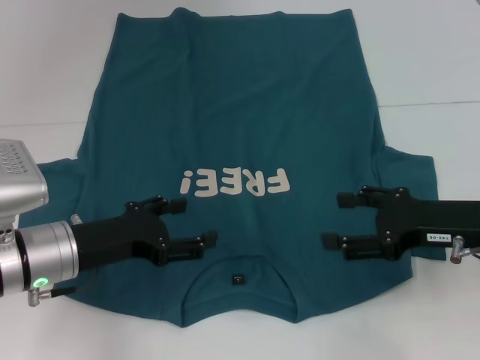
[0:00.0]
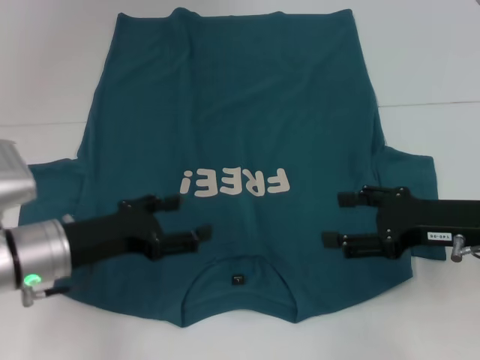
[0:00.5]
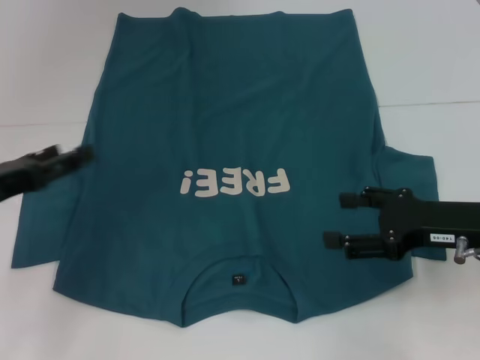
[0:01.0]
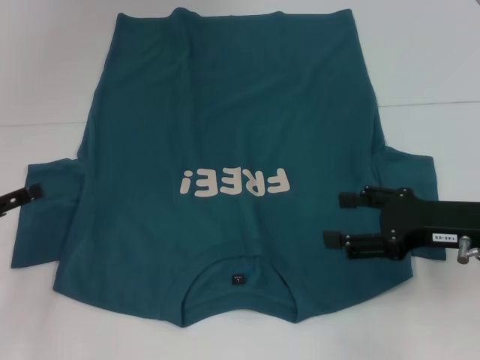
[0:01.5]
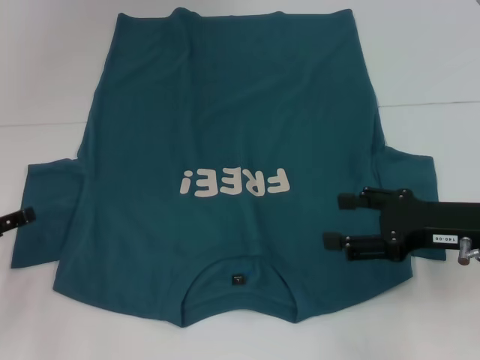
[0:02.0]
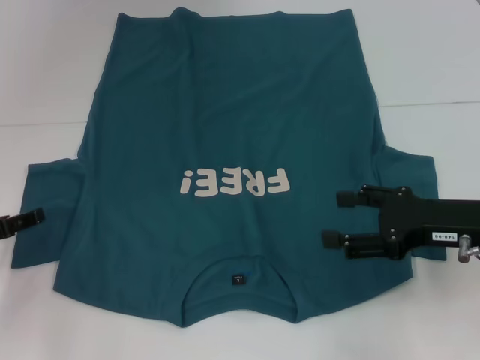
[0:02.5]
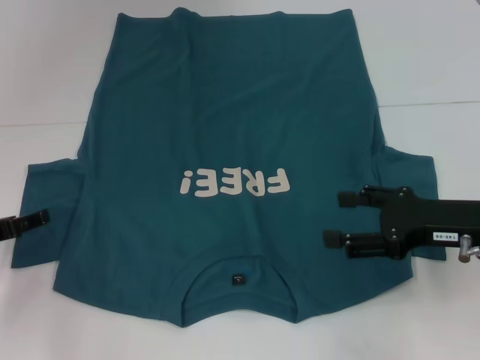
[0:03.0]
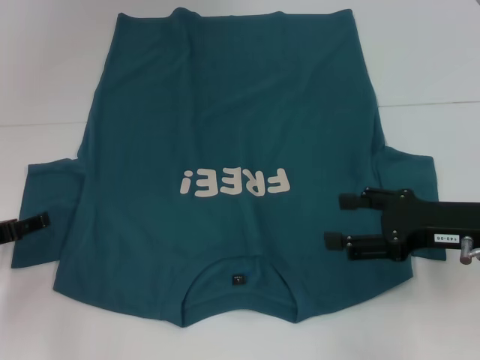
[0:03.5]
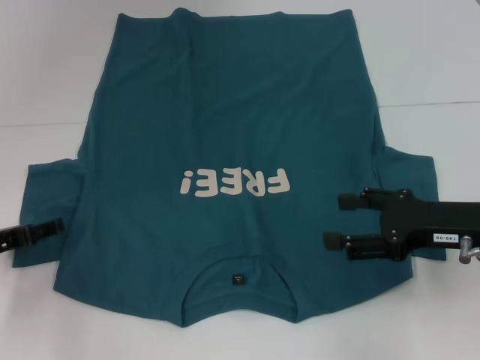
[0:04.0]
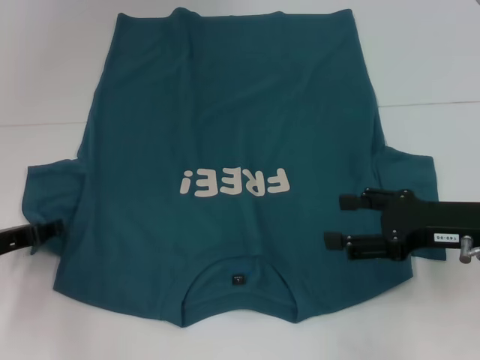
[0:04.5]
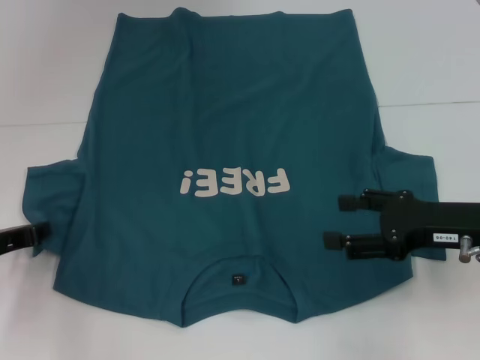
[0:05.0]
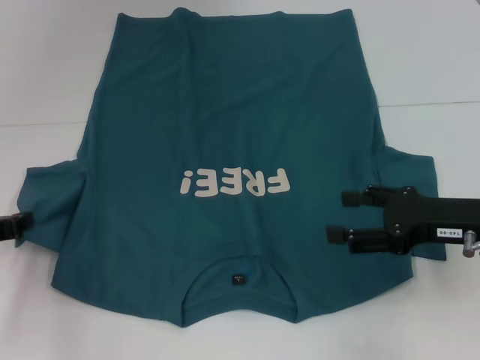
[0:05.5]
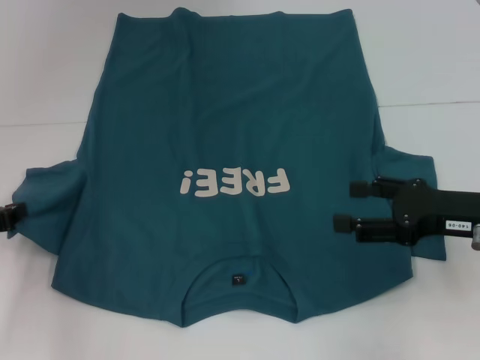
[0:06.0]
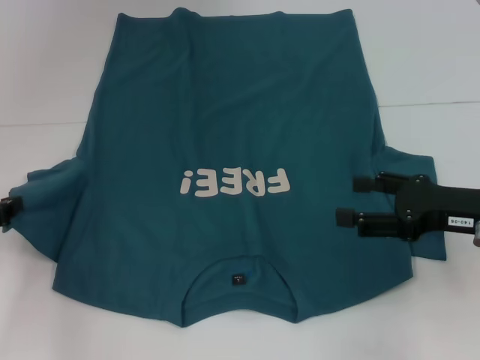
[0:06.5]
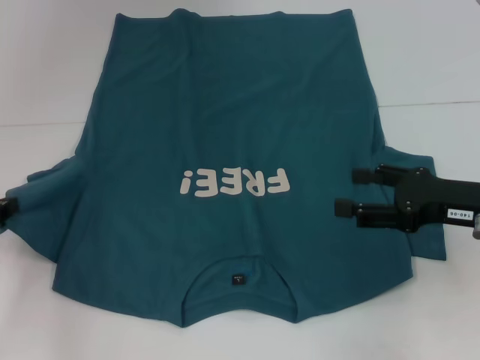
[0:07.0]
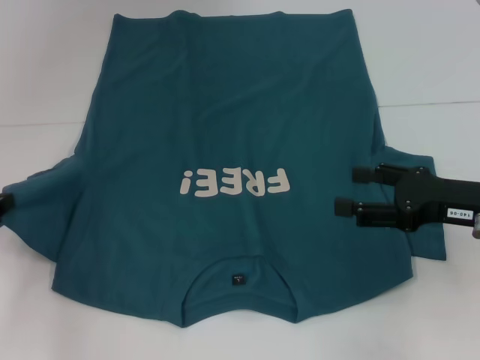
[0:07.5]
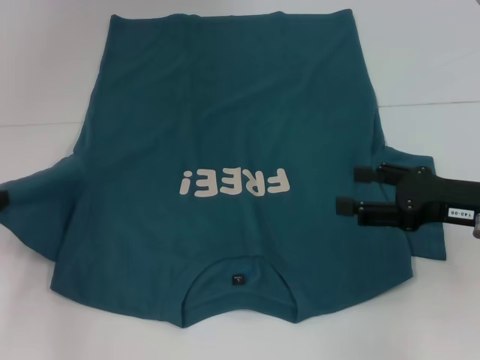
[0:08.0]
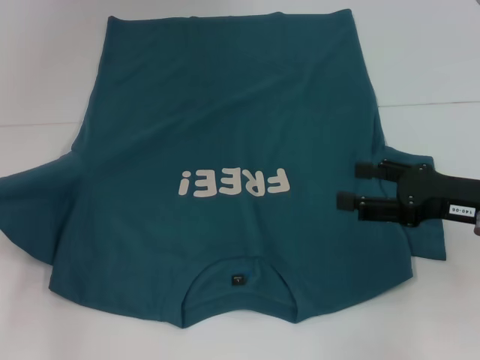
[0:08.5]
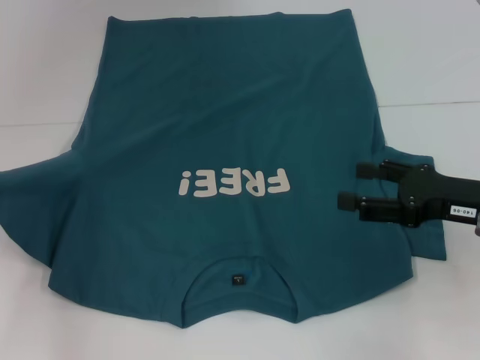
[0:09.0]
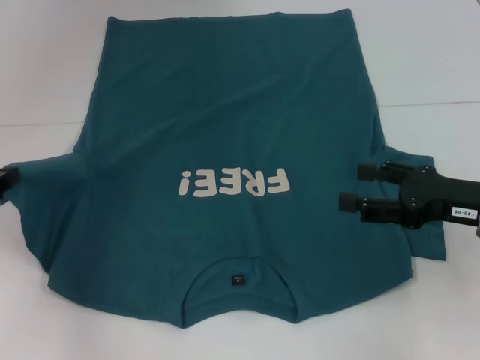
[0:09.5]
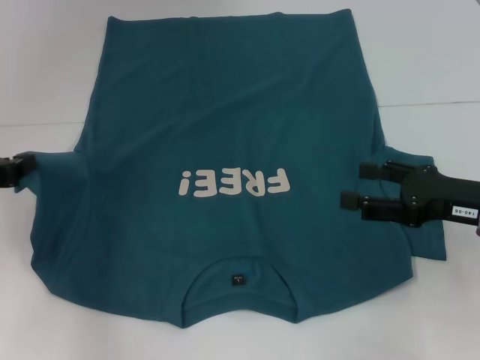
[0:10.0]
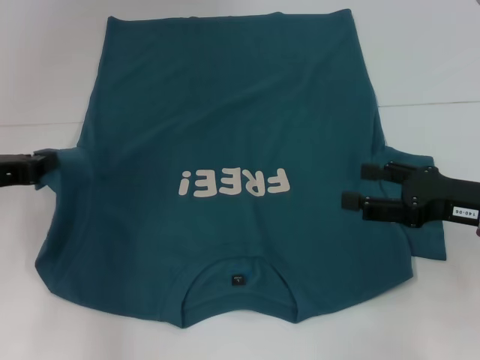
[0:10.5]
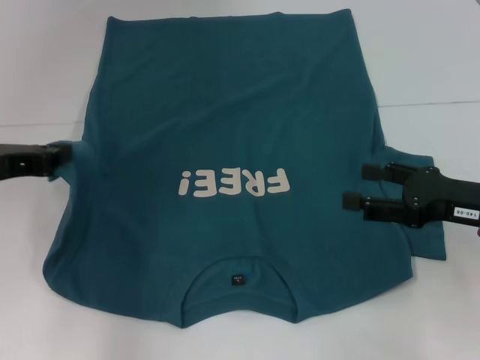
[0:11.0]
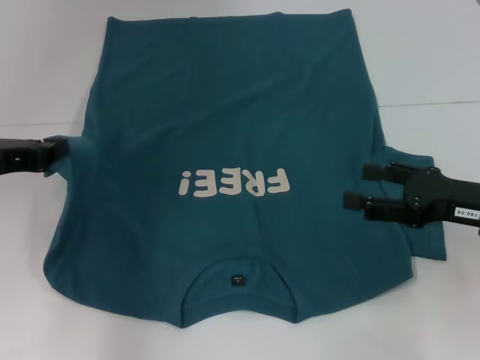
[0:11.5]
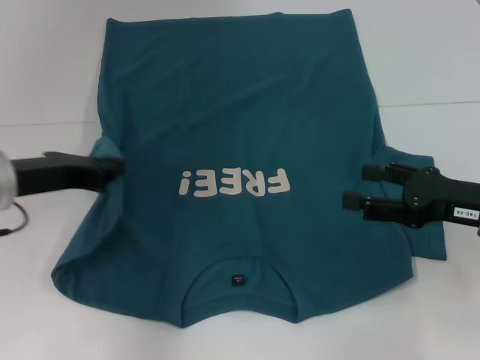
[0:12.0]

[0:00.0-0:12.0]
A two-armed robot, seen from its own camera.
0:00.0 to 0:02.0: The left gripper travels to the left by some 15 cm.
0:02.0 to 0:04.0: The grippers stay close to where they were, moving slightly.
0:04.0 to 0:06.0: The left gripper closes up.
0:06.0 to 0:10.0: There are only small adjustments of the grippers.
0:10.0 to 0:12.0: The left gripper heads to the right, covering about 10 cm.

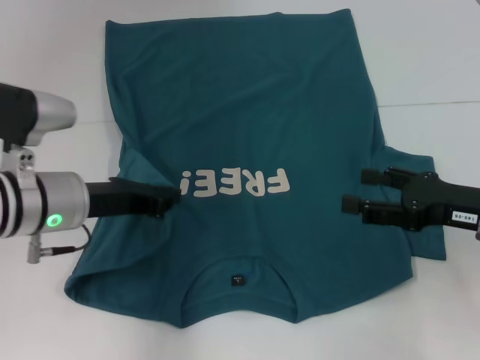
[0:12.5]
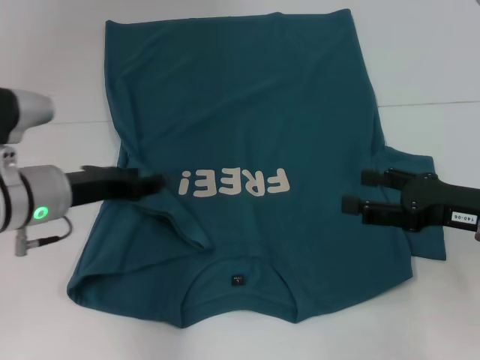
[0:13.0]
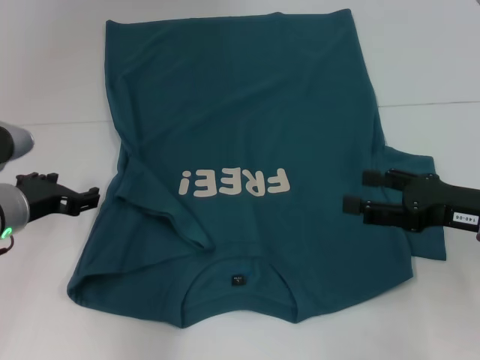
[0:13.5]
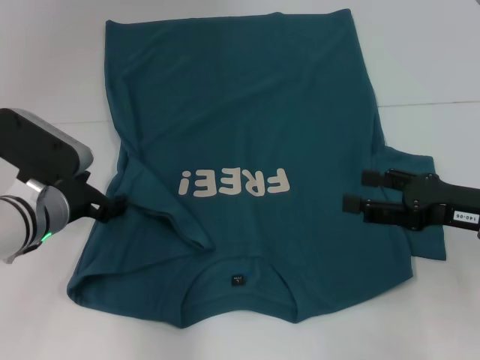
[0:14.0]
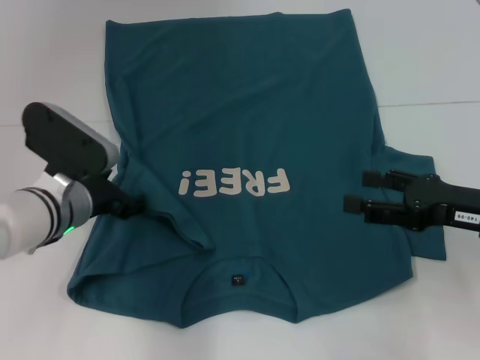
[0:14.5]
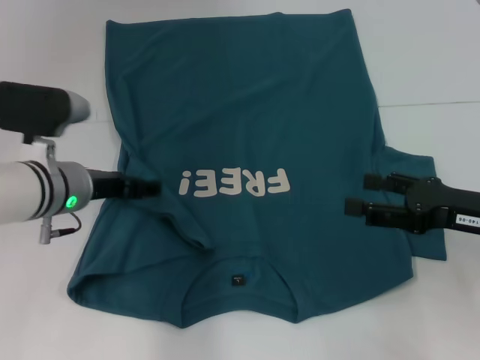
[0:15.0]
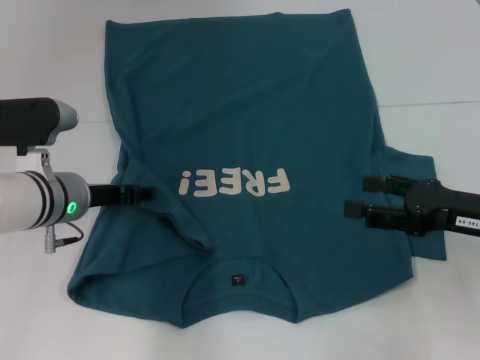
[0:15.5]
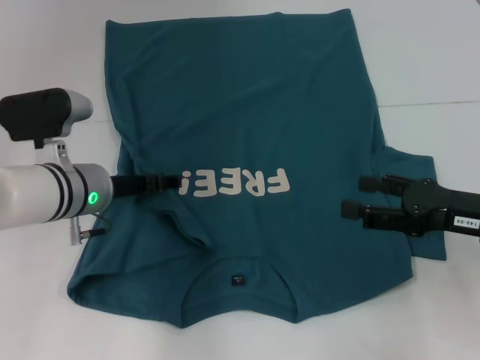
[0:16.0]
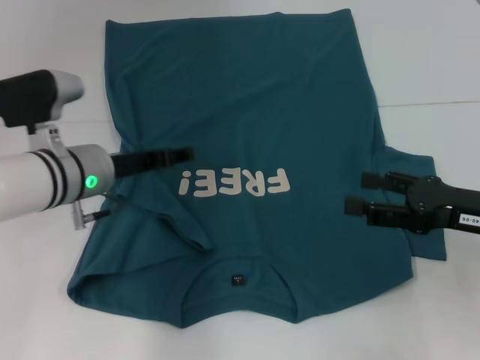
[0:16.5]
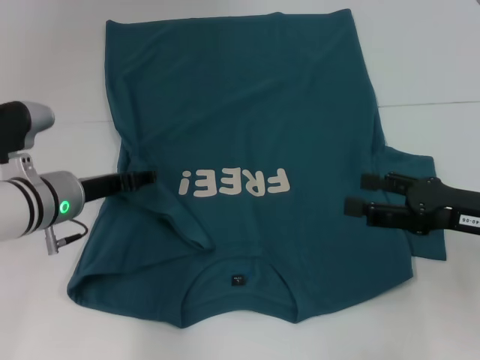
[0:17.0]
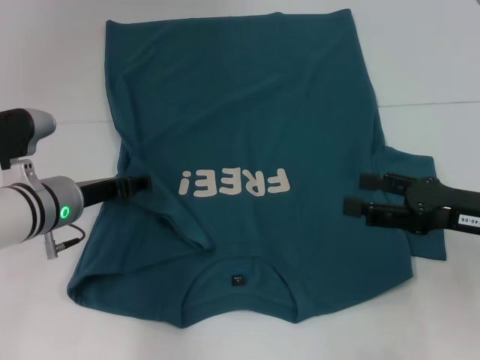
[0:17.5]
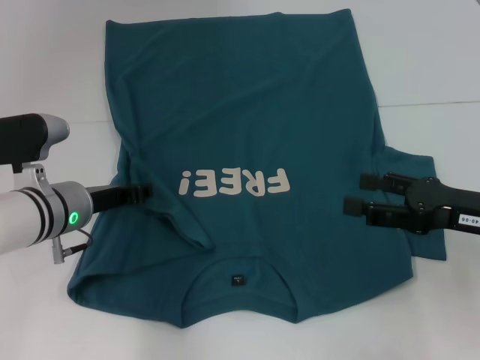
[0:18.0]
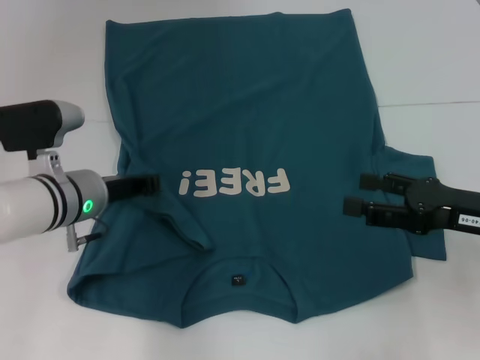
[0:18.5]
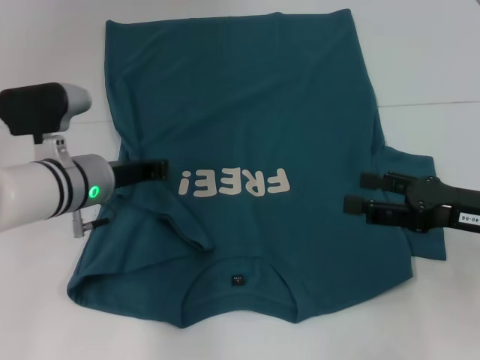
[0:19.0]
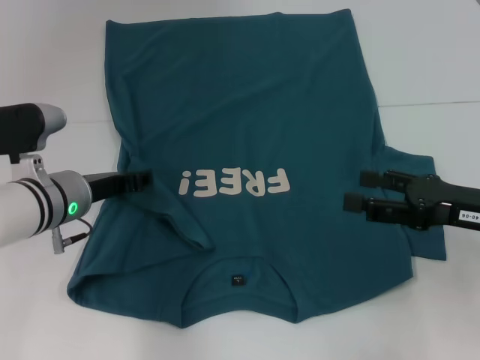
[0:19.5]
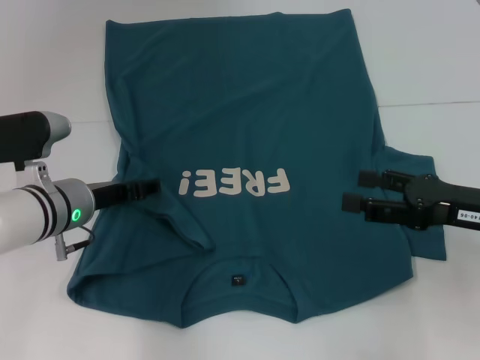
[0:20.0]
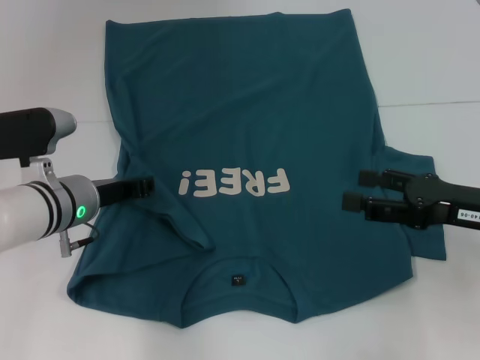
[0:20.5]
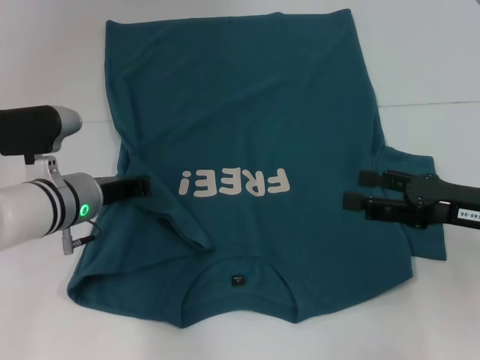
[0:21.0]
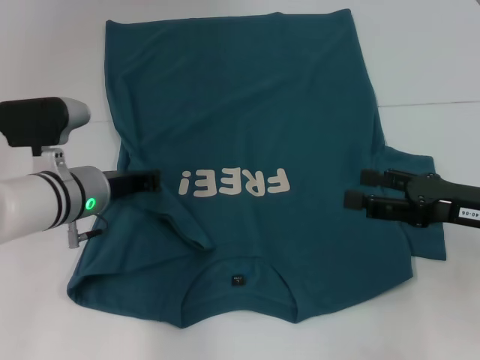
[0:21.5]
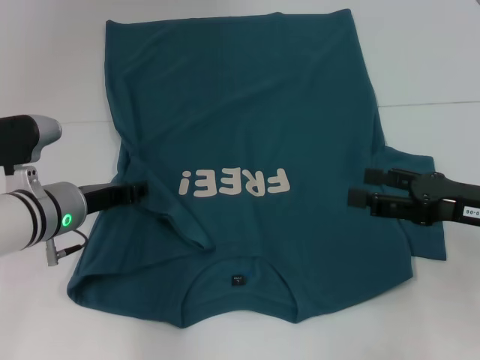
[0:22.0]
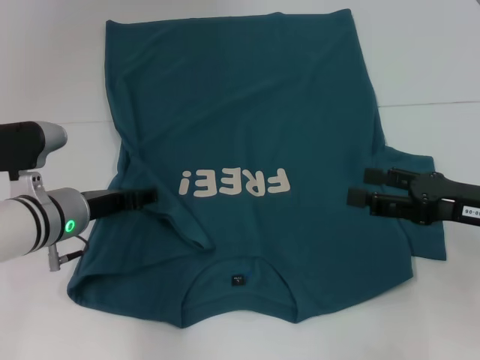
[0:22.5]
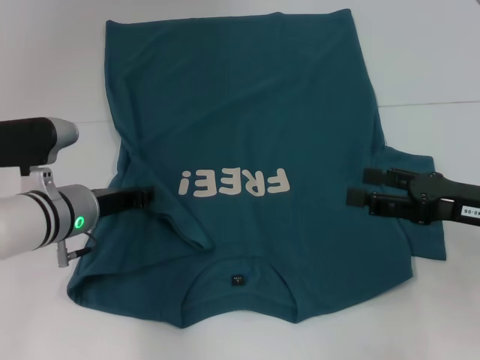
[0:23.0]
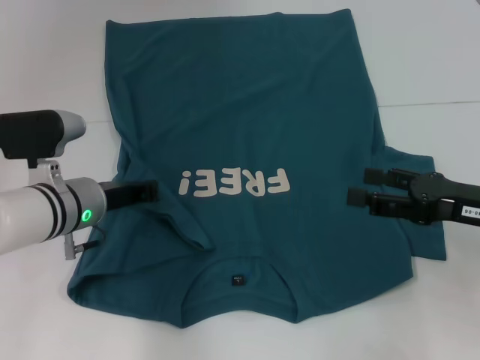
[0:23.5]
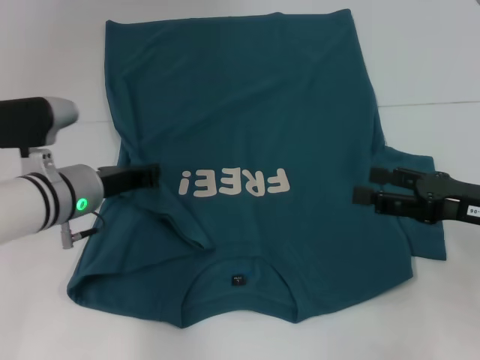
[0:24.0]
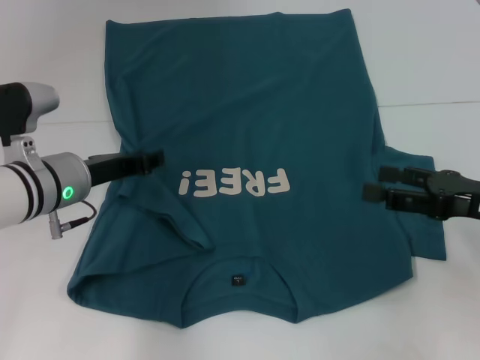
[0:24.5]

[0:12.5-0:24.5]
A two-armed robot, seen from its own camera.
0:12.5 to 0:14.5: The left gripper goes approximately 5 cm downward, and opens up.
0:16.5 to 0:18.5: The left gripper closes up.
0:18.5 to 0:20.5: The grippers stay close to where they were, moving slightly.
0:20.5 to 0:22.5: The left gripper closes, then opens again.
0:22.5 to 0:24.5: The left gripper closes its fingers.

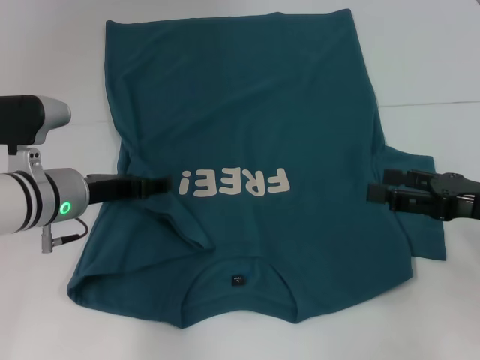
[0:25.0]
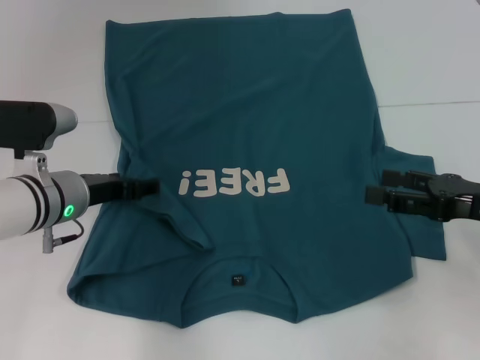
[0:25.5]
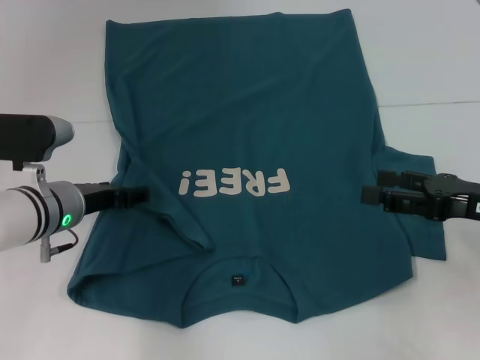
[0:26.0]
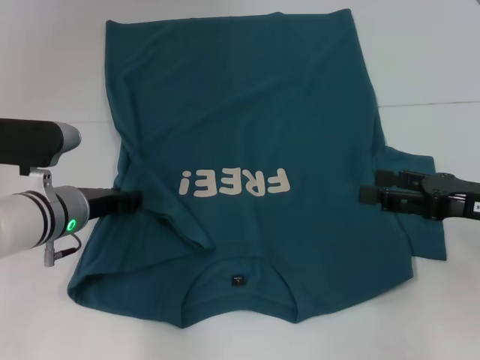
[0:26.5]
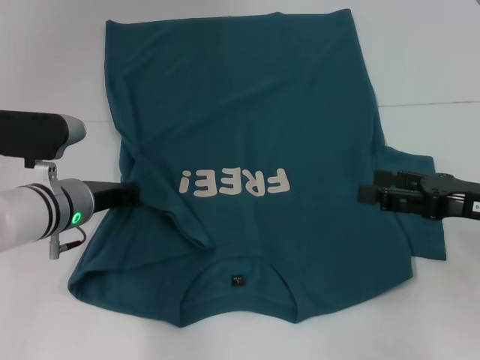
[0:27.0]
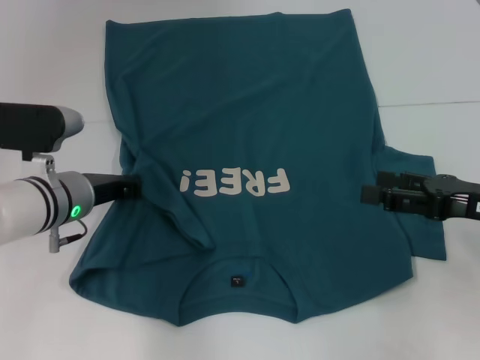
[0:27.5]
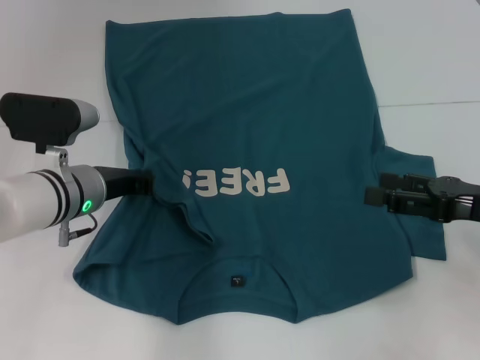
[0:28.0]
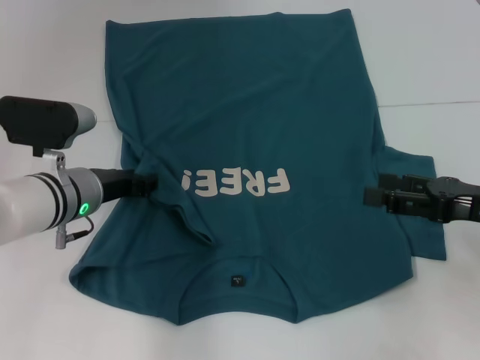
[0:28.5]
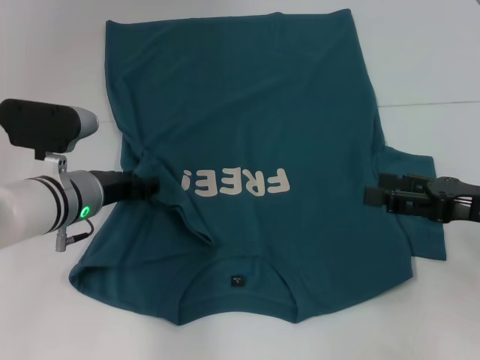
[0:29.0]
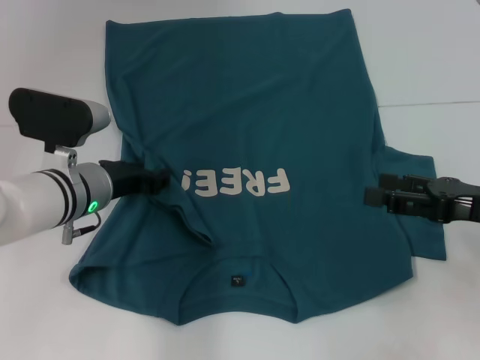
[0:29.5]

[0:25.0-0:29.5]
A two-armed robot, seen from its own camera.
0:25.0 to 0:27.0: The left gripper closes its fingers.
0:27.0 to 0:29.5: The grippers move only a little.
